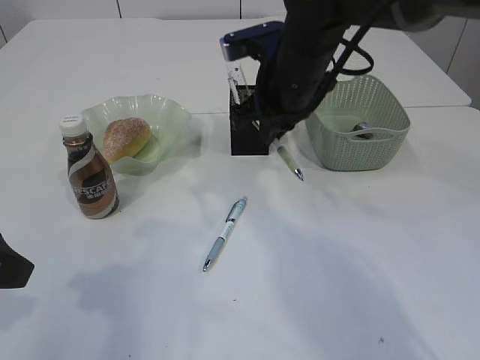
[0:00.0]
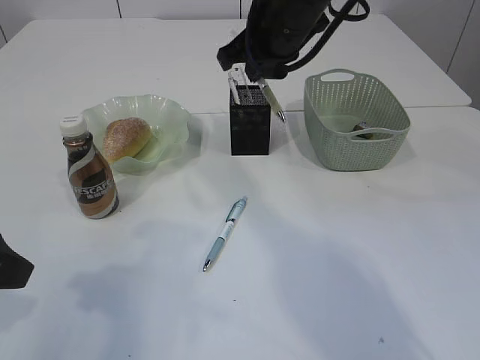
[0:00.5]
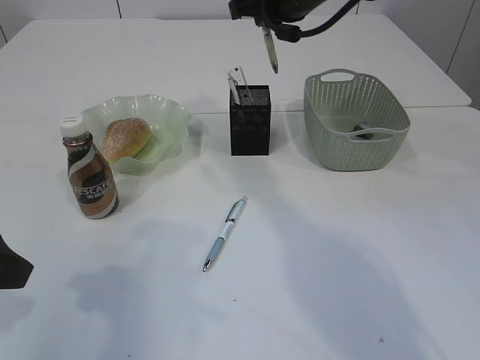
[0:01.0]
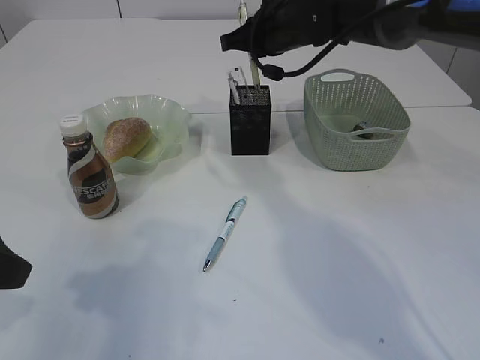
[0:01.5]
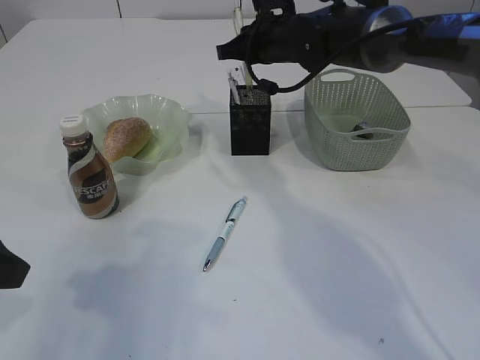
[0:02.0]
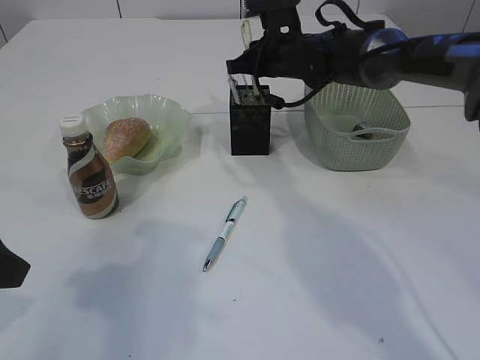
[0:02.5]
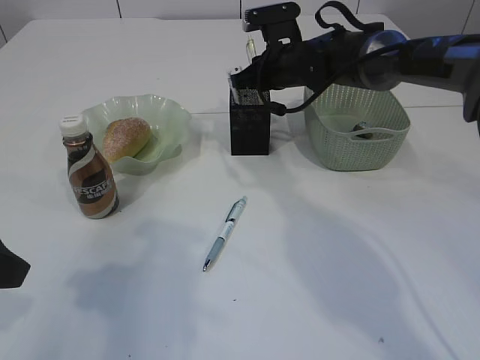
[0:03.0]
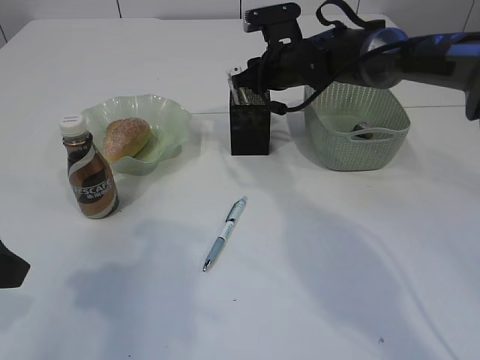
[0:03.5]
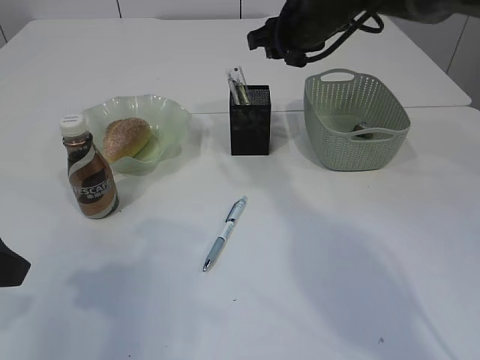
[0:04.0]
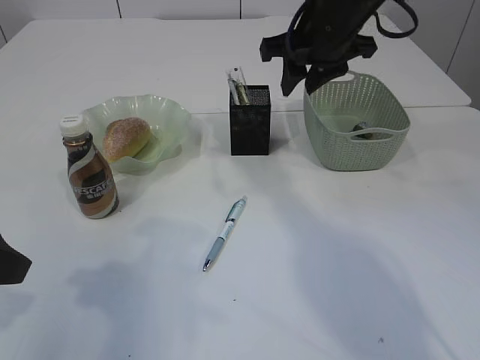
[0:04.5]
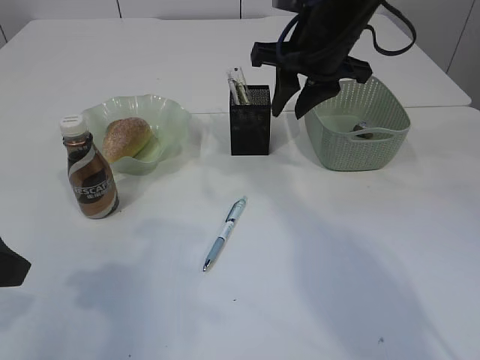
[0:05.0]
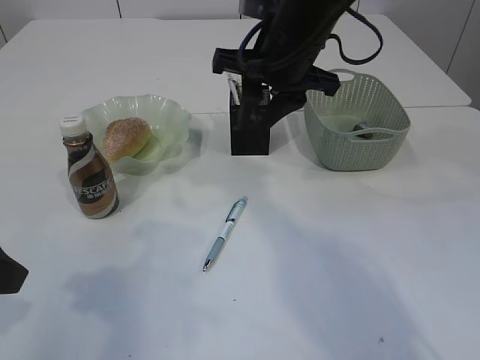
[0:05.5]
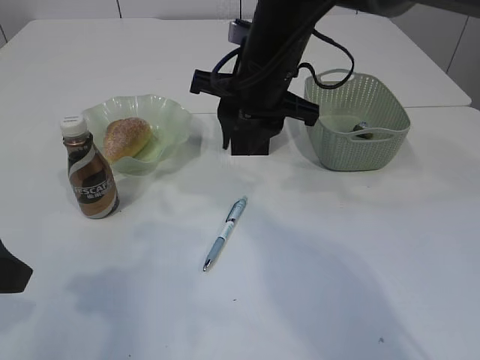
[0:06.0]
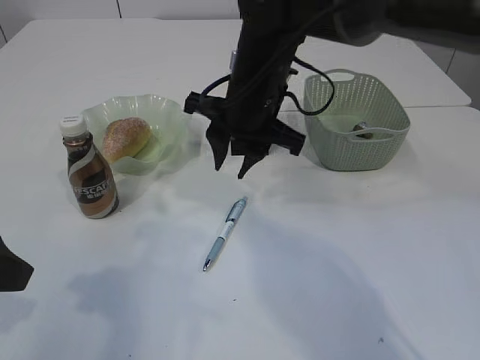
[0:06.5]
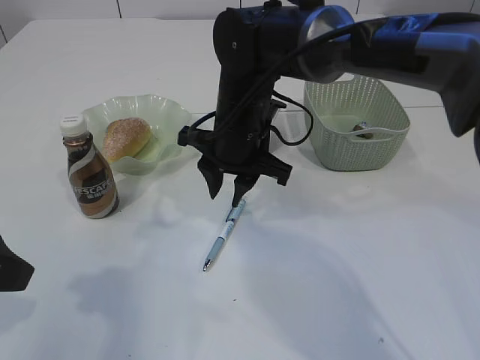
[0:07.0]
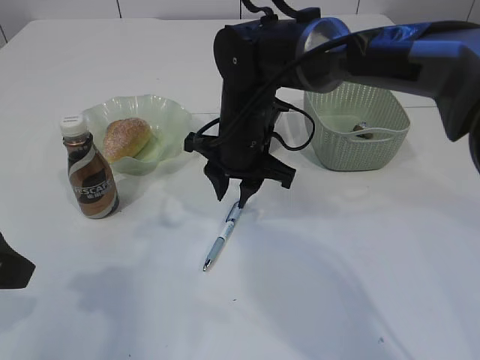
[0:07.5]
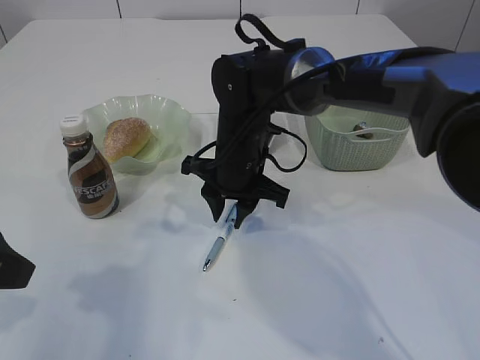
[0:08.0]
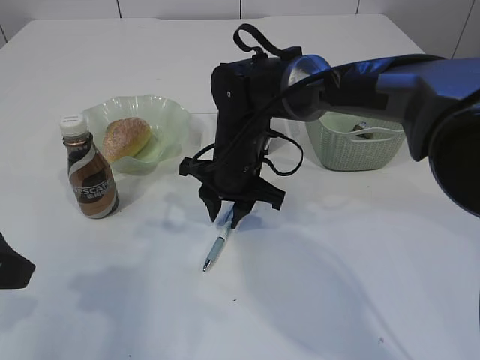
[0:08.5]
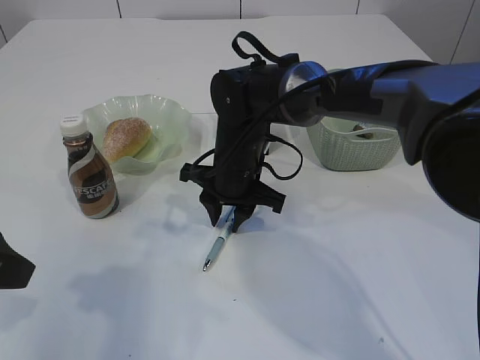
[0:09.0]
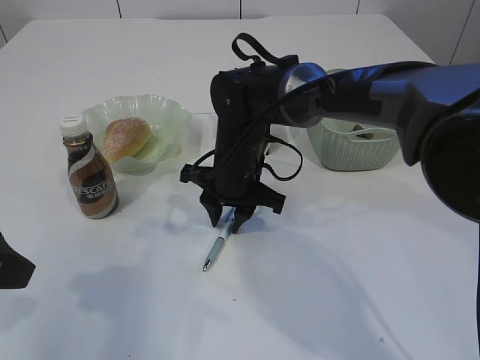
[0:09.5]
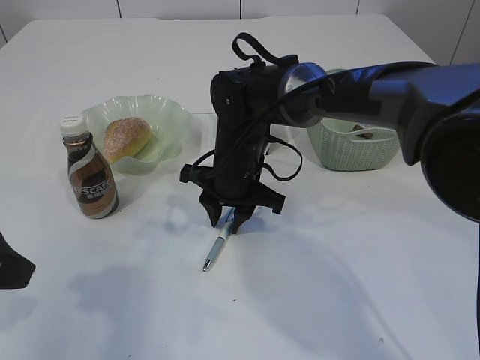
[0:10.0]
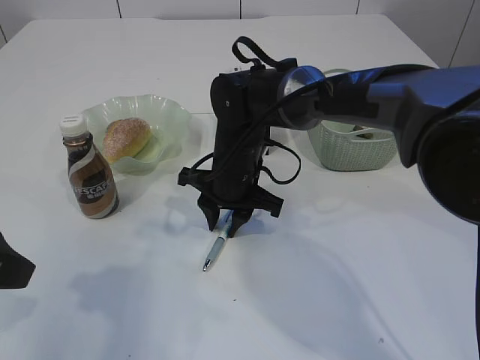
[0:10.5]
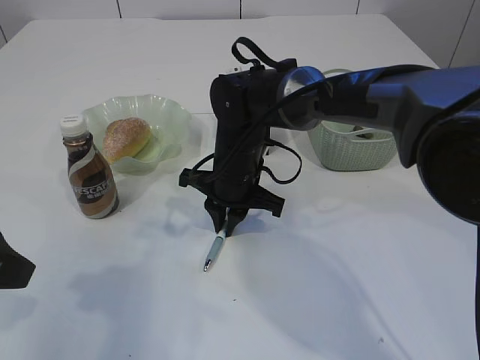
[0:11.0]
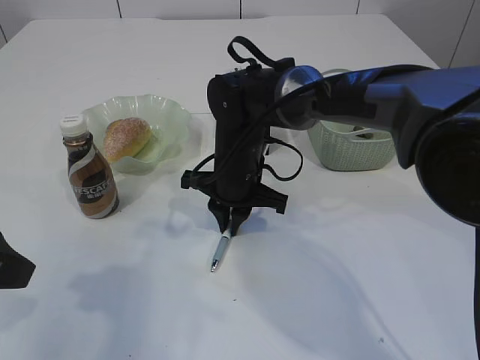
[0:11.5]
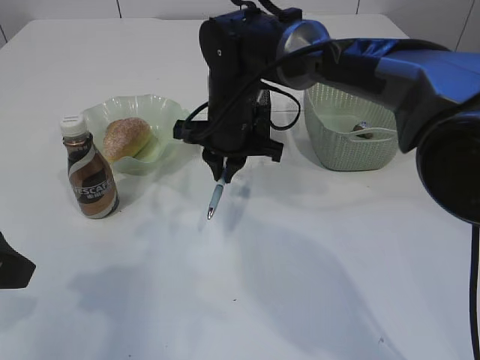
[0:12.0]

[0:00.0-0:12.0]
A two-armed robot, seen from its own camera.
Step, 0:00.0 to 0:03.5: Place the pen into the pen holder.
0:00.0 to 0:02.0: The right gripper is displaced forward by approximately 10 cm.
0:02.0 to 0:04.0: The right gripper moves roughly 5 cm, and opens its fingers.
0:04.0 to 0:06.0: The right gripper moves backward and to the left, about 10 cm.
0:06.0 to 0:08.0: The right gripper travels downward by some 10 cm.
0:08.0 to 0:10.0: The grippers move only a little.
0:10.0 to 0:12.0: The right gripper goes approximately 5 cm upward, and closes.

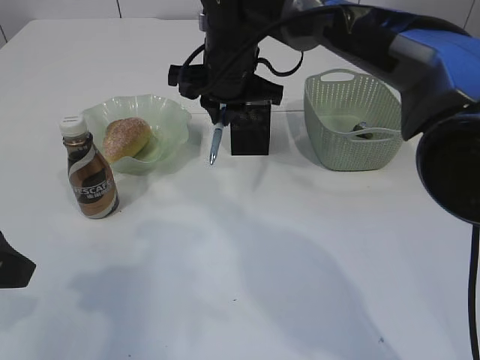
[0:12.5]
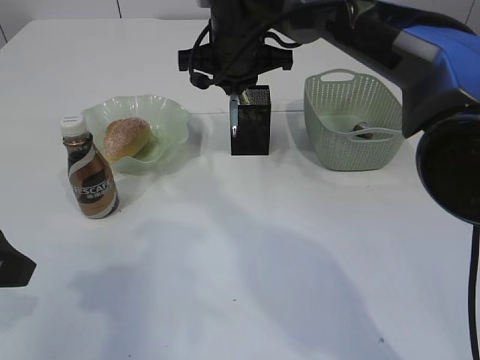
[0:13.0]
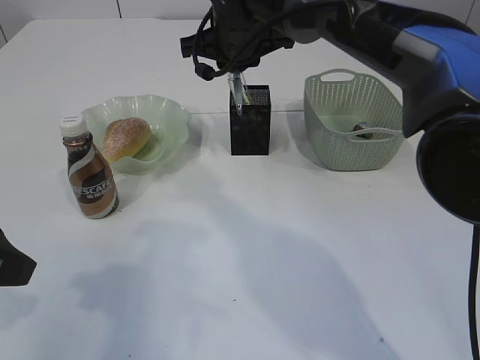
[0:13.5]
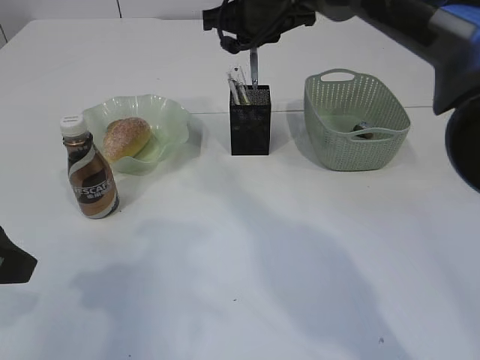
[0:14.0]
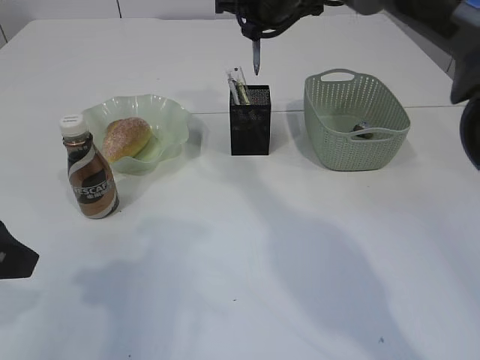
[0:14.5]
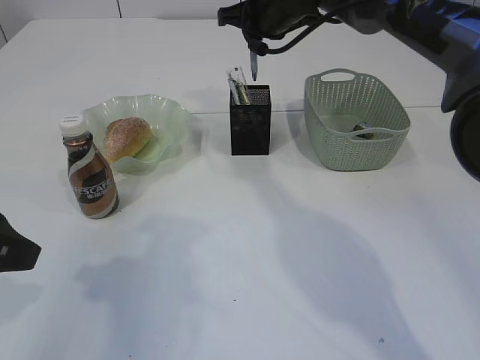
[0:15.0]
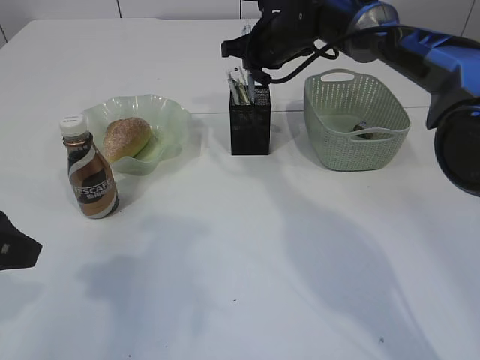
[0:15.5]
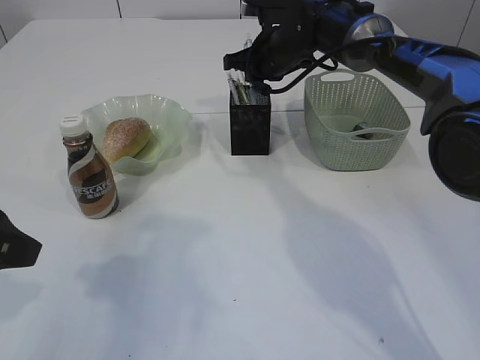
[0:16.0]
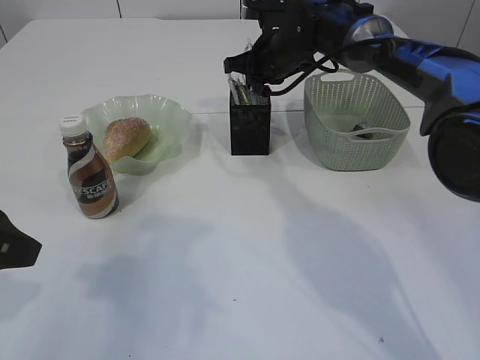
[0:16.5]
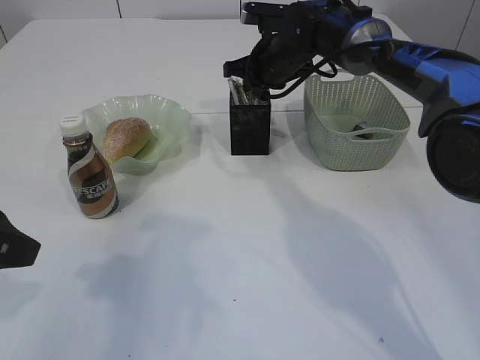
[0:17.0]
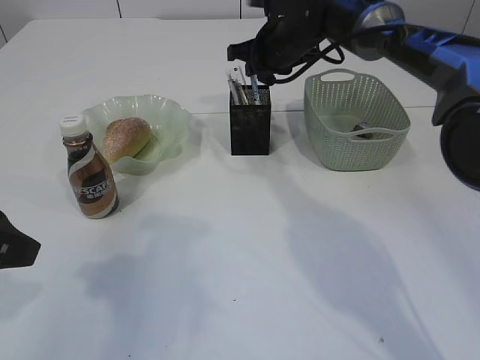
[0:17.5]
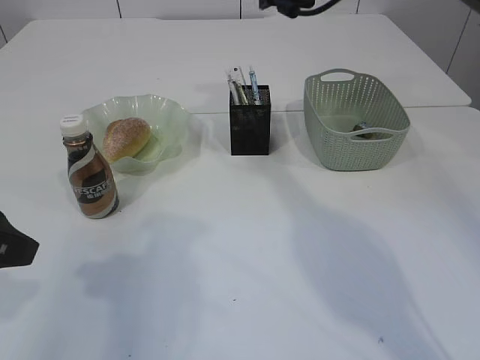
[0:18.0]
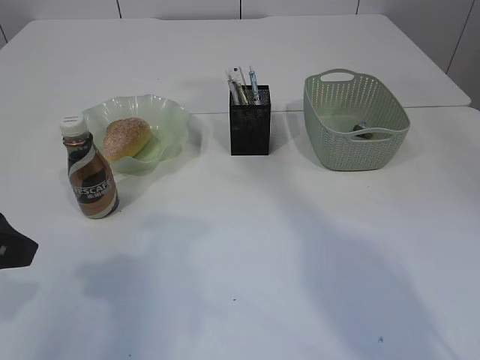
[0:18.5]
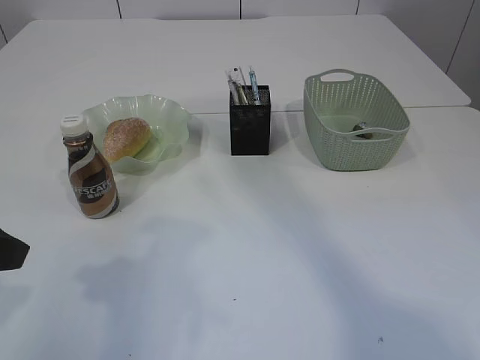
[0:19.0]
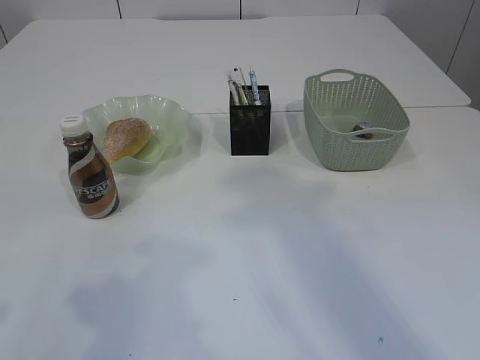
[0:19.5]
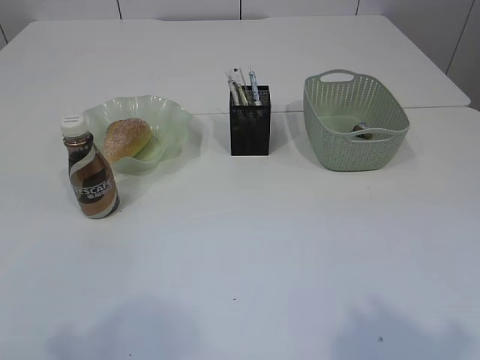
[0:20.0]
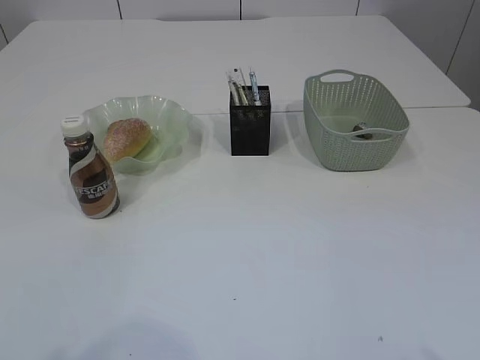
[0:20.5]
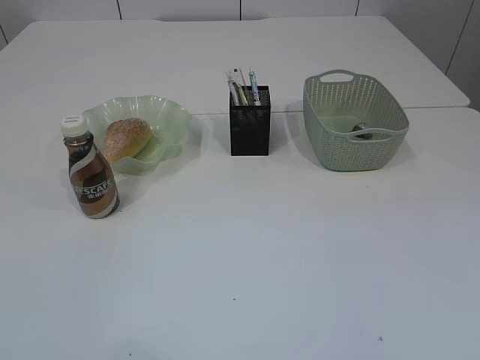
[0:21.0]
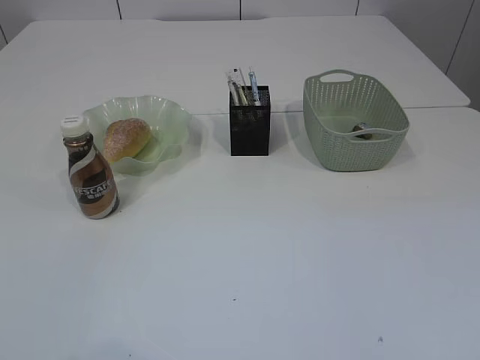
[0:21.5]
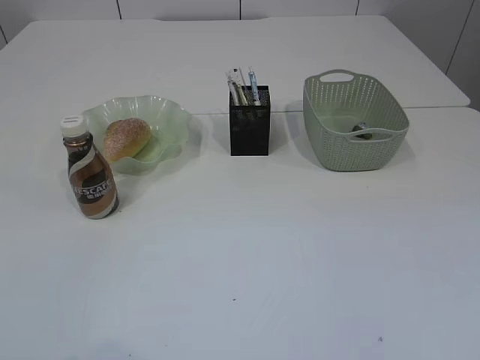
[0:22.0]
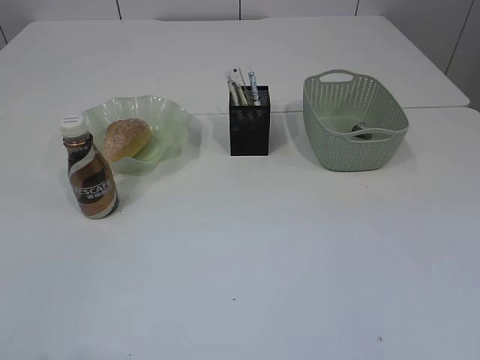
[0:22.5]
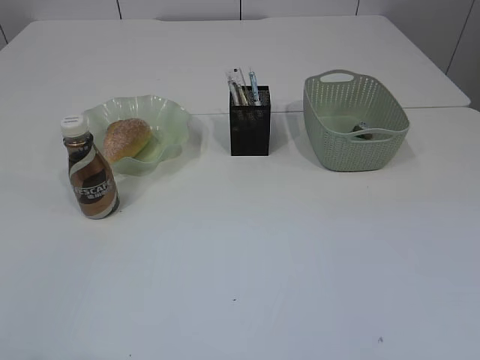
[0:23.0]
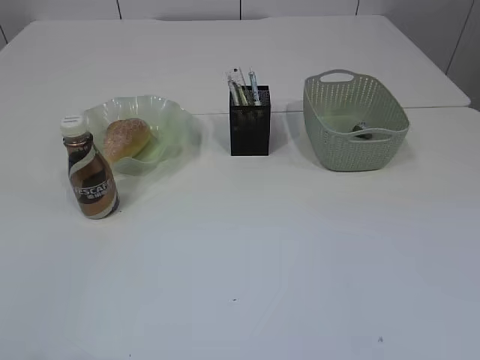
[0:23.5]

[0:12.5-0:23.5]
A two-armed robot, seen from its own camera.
Step, 0:12.5 to 0:17.5: Place the pen into the pen holder.
0:12.5 to 0:14.5: The right gripper goes roughly 10 cm to the right, forward and upward.
0:14.5 to 0:16.0: The right gripper moves downward, about 10 cm.
0:16.0 to 0:18.0: The right gripper goes roughly 10 cm upward, and opens its fingers.
0:18.0 to 0:20.0: The left gripper goes some 15 cm backward; the right gripper is displaced backward by some 50 cm.
